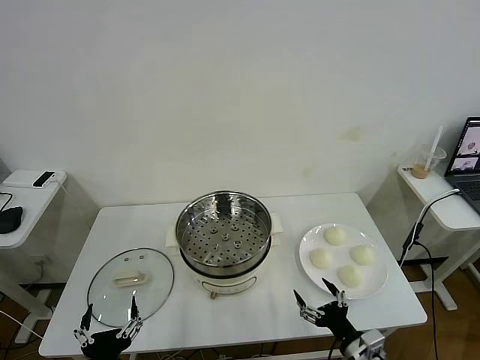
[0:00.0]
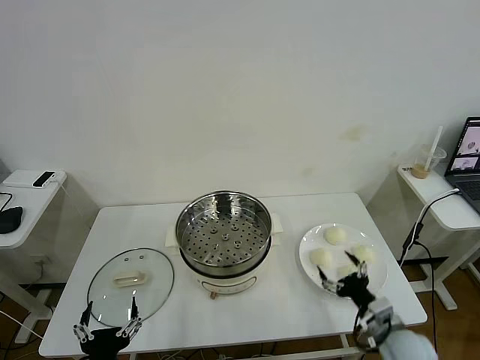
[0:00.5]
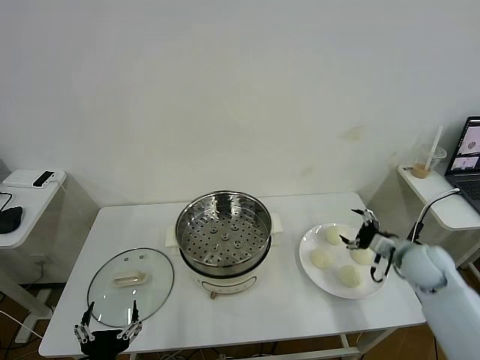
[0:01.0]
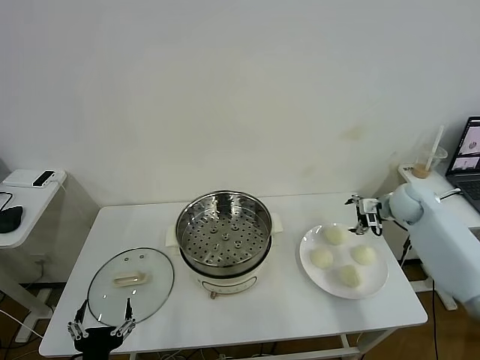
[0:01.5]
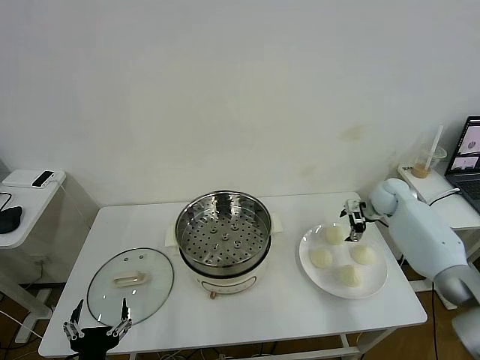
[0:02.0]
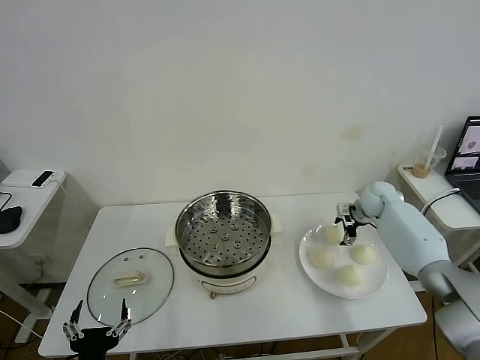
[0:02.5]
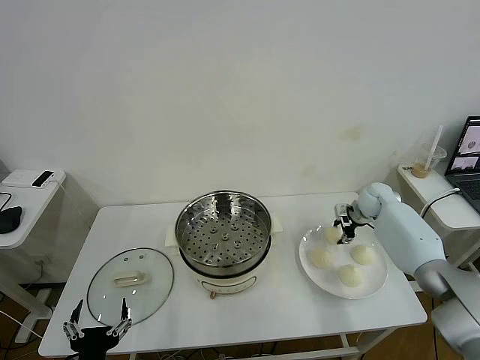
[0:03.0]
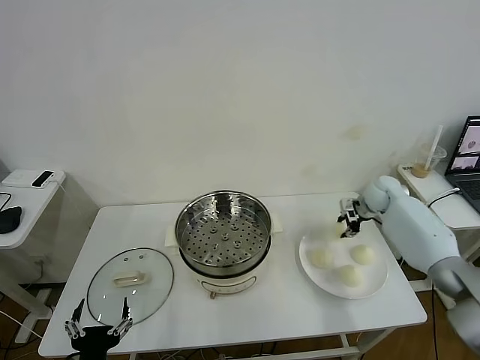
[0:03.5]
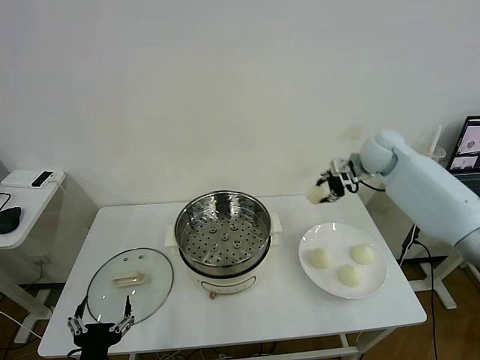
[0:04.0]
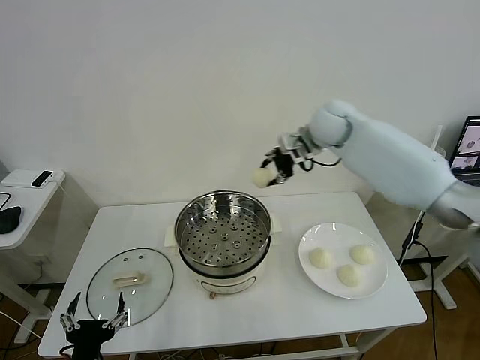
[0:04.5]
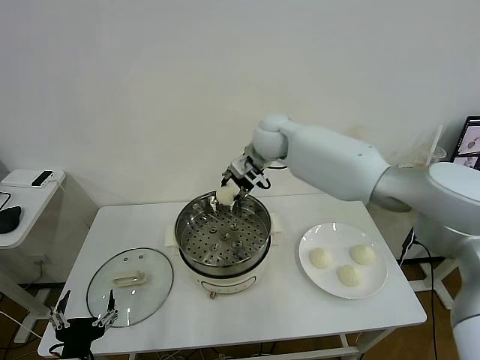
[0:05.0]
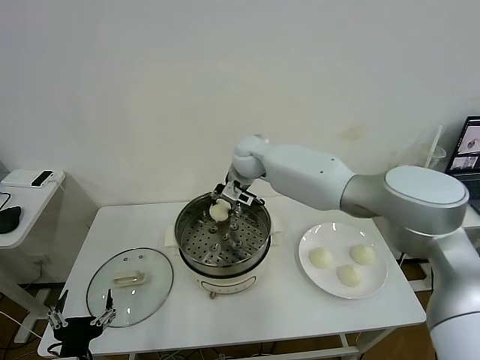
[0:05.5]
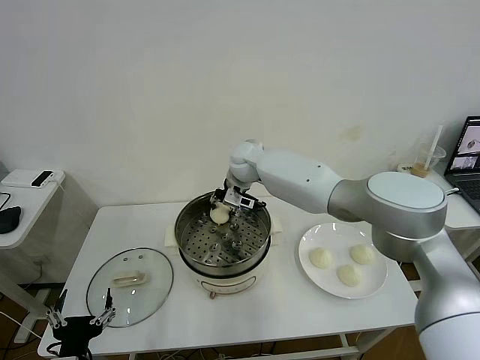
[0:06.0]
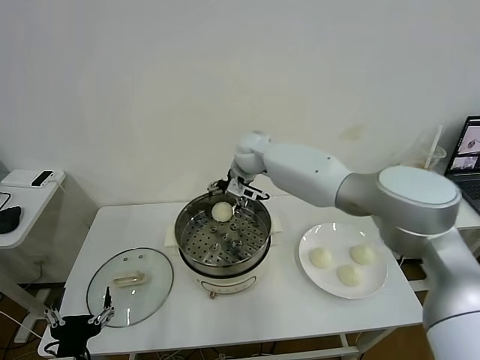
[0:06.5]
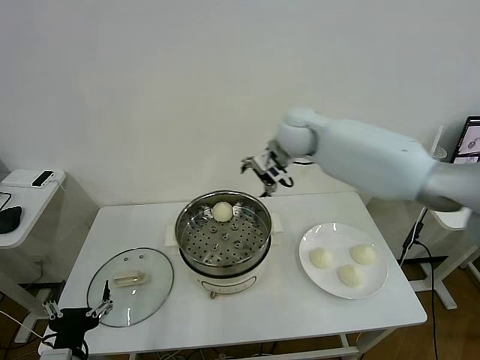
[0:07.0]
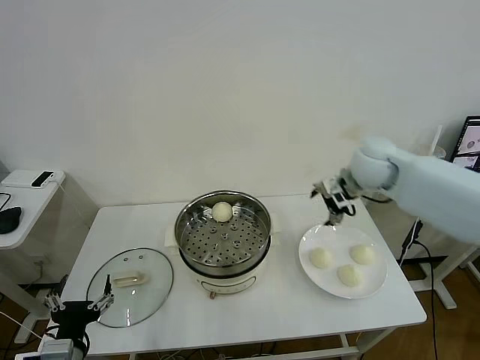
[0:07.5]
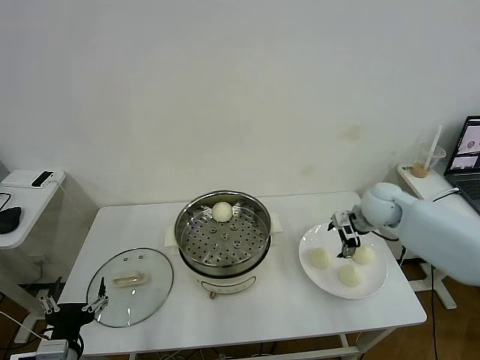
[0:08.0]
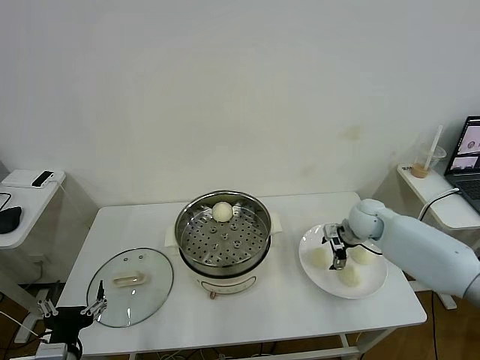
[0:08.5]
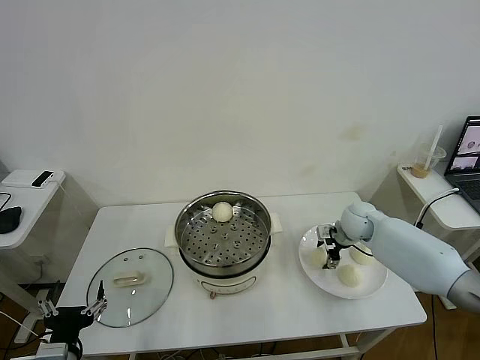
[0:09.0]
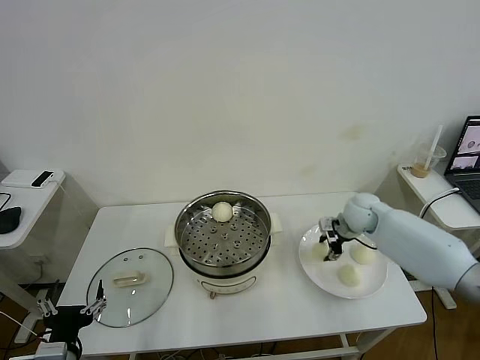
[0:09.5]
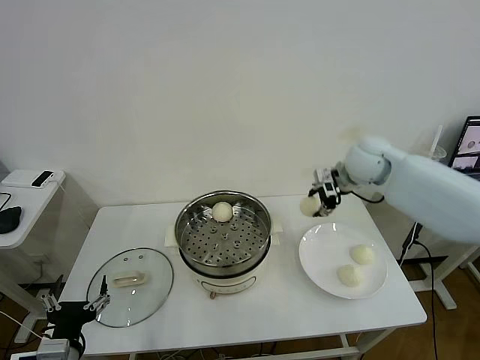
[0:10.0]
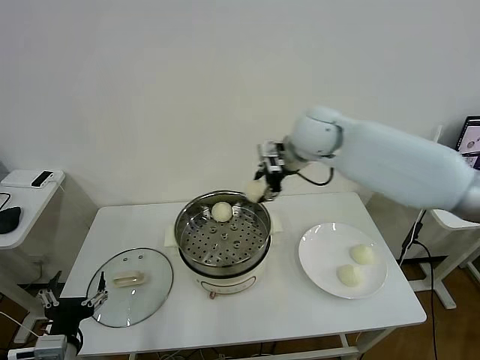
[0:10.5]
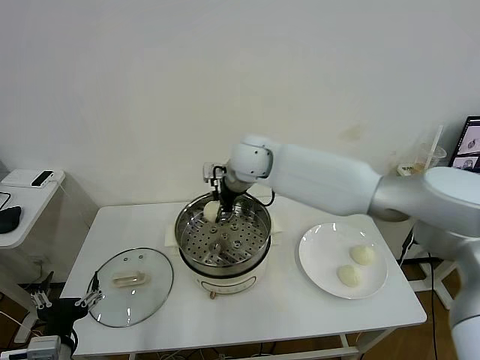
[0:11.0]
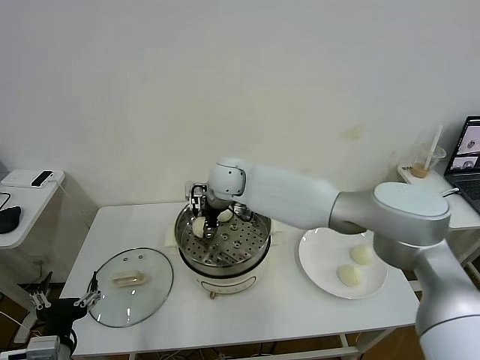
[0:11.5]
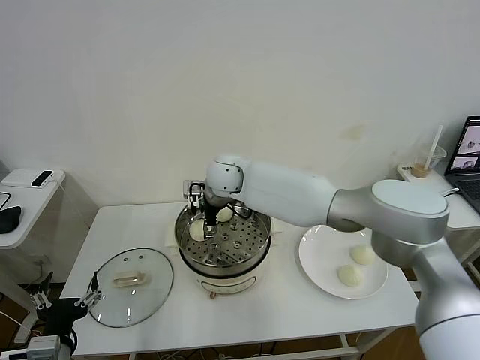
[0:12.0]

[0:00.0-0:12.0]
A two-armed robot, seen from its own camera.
Task of the whole recording: take steamed baozi put them in steamer then cover it.
Step, 0:00.0 to 0:03.0: Grasp the baozi in the plate with right gripper.
Step, 0:03.5 to 0:06.0: Place the baozi on the steamer with right gripper.
Step, 0:07.0 to 0:09.0: Grasp the baozi in the plate with right gripper.
0:02.0 to 0:04.0: The right gripper heads upward and to the left, covering roughly 15 cm, and closes its fingers.
0:04.0 to 0:06.0: The right gripper goes about 30 cm to the left.
0:06.0 to 0:08.0: The right gripper is displaced to the right by about 30 cm, and opens.
0:08.0 to 0:10.0: The right gripper moves upward and to the left, some 10 cm, and closes.
0:10.0 to 0:12.0: The right gripper goes approximately 30 cm to the left, and opens.

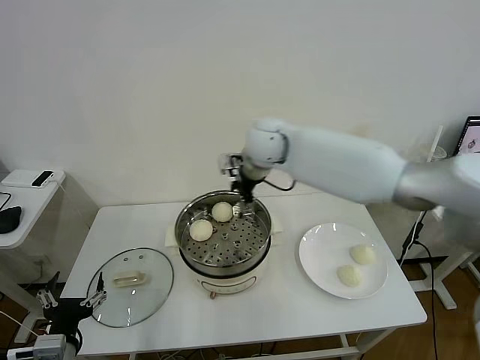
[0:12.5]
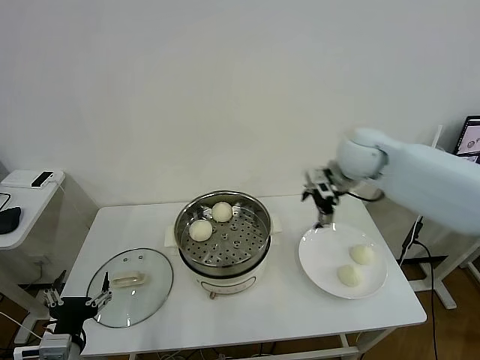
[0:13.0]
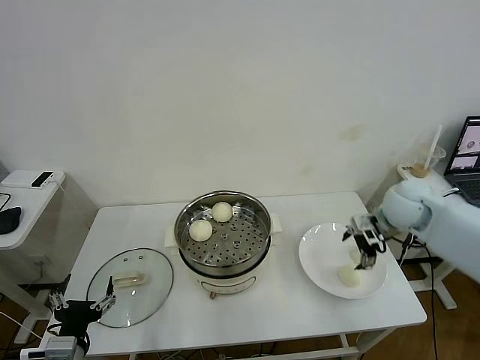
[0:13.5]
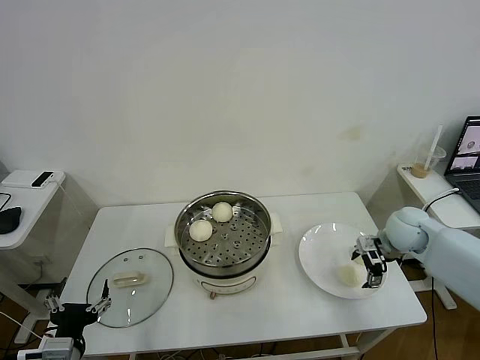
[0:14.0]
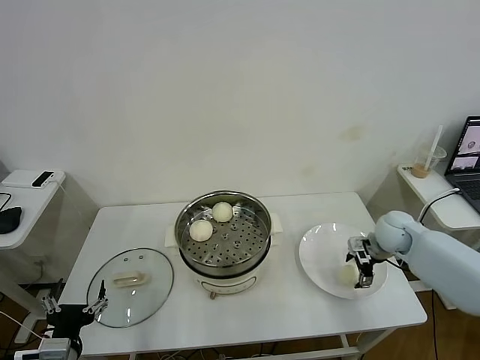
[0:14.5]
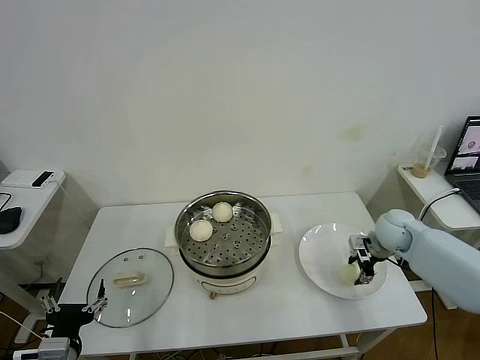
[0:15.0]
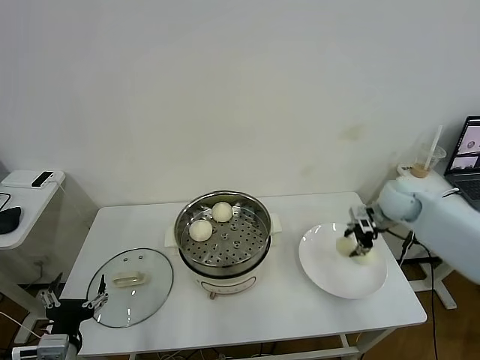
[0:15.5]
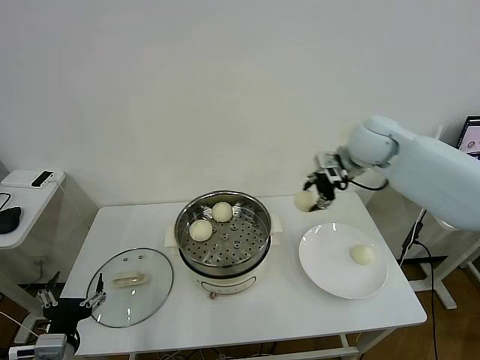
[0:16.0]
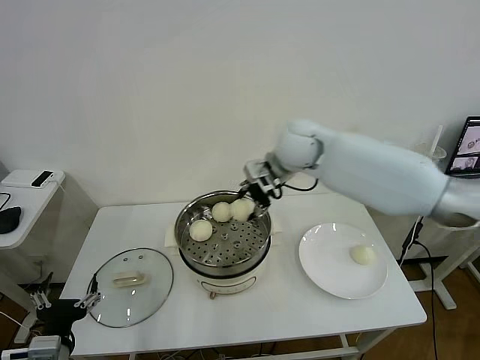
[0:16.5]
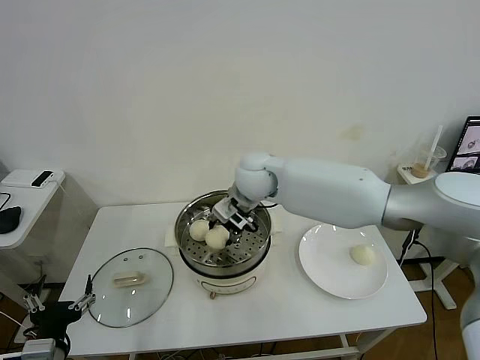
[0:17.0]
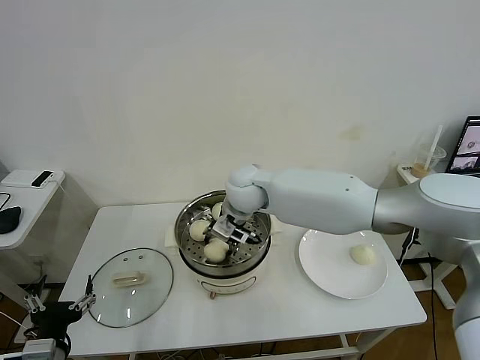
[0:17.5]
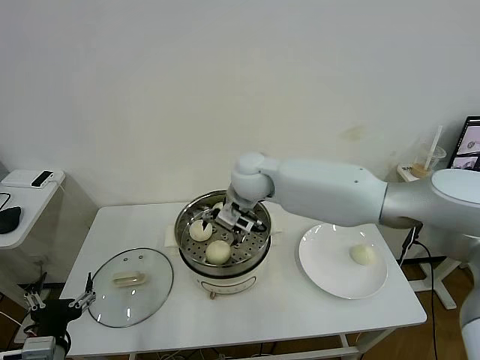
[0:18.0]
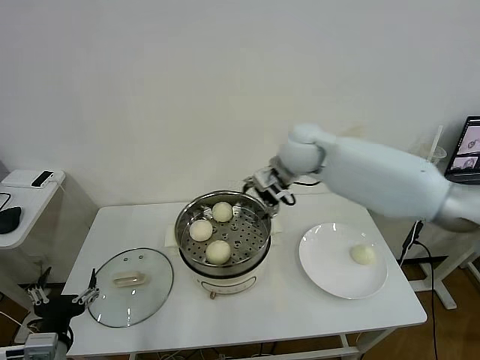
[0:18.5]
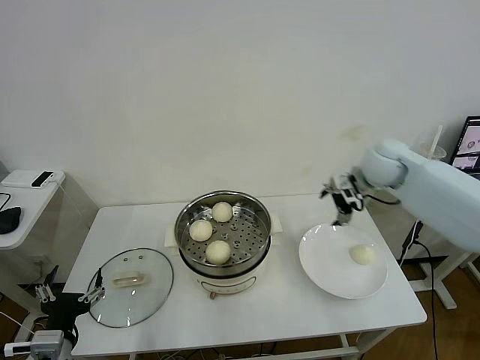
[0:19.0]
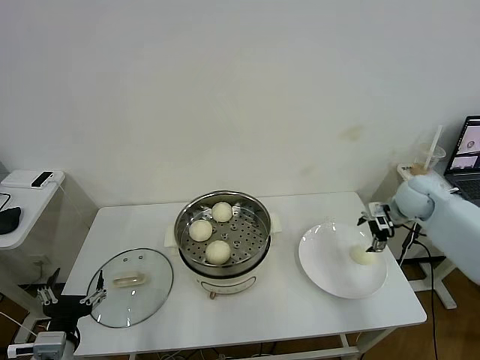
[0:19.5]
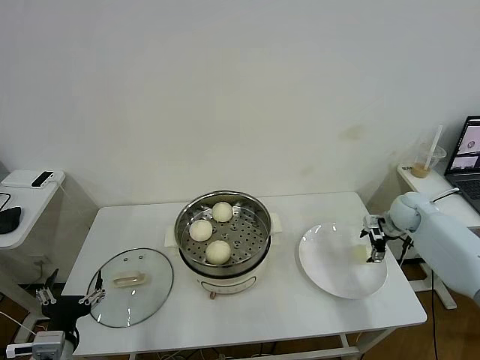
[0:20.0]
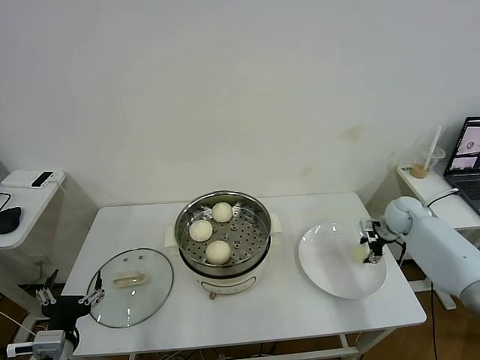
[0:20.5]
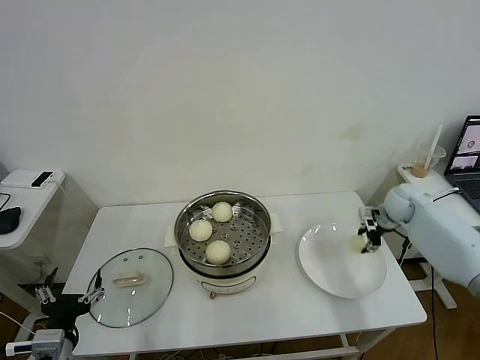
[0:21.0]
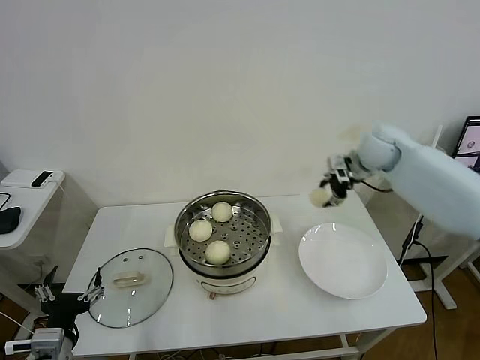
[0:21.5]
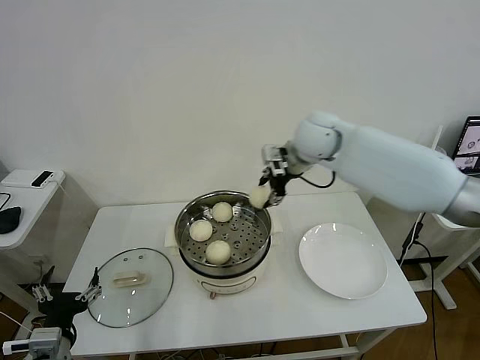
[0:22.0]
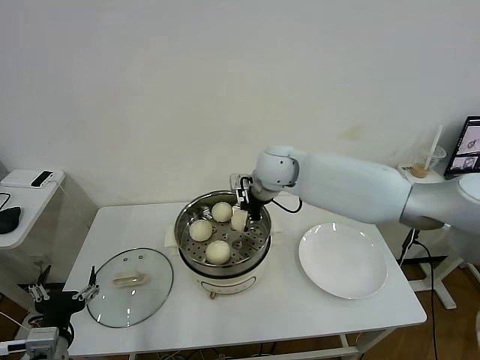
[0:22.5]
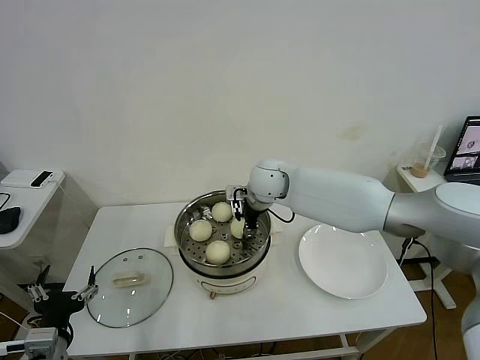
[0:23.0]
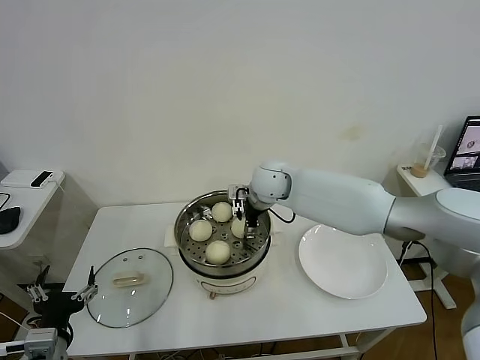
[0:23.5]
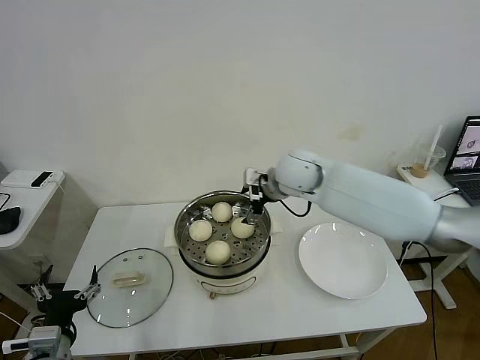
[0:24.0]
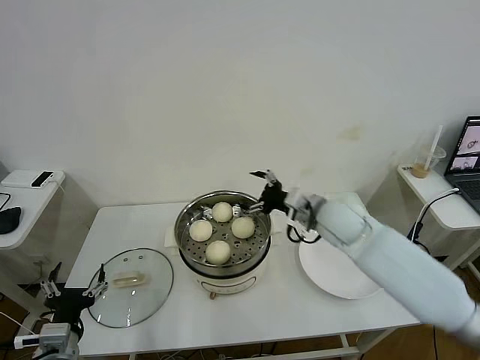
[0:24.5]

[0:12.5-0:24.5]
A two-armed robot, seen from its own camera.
Task of the whole recording: take steamed baozi put them in steamer then cover it.
Step, 0:12.5 to 0:15.0: Grasp the baozi in the plate with right gripper.
Step, 0:15.5 to 0:18.0: Place the baozi on the steamer with right gripper.
Step, 0:18.5 to 0:20.5: Grasp the baozi in the plate with right gripper.
Step, 0:21.0 to 0:23.5: Place the baozi on the steamer with right gripper.
0:12.5 to 0:14.5: The right gripper travels to the right and downward by about 40 cm.
0:14.5 to 0:16.5: The right gripper is displaced to the left and upward by about 35 cm, and closes up.
0:16.5 to 0:18.5: The right gripper reaches about 10 cm to the left, then returns, and opens its fingers.
0:18.5 to 0:20.5: The right gripper heads to the right and downward, covering about 40 cm, and closes its fingers.
0:20.5 to 0:22.5: The right gripper travels to the left and upward by approximately 40 cm.
0:22.5 to 0:24.5: The right gripper travels to the right, backward and downward by roughly 15 cm, and opens its fingers.

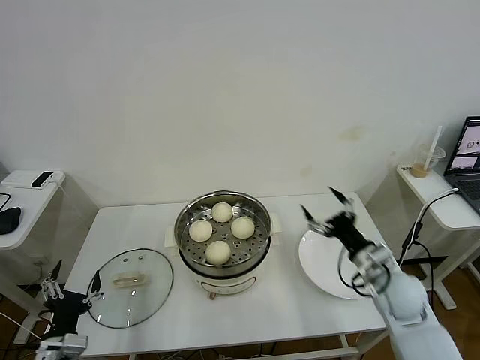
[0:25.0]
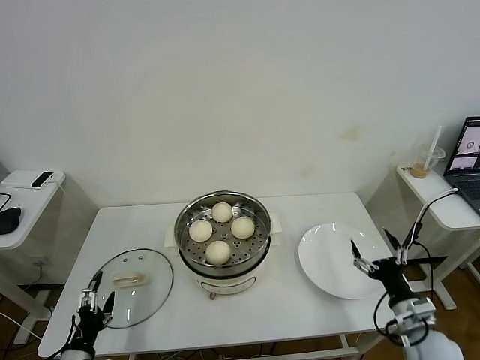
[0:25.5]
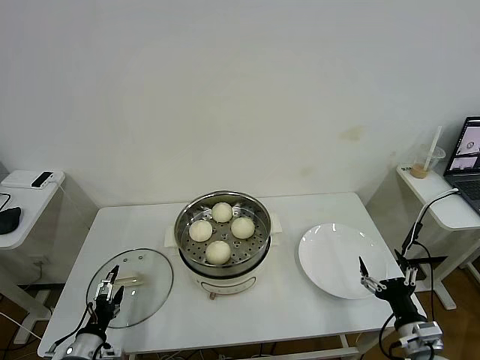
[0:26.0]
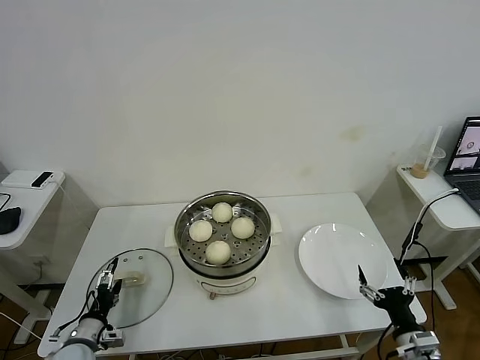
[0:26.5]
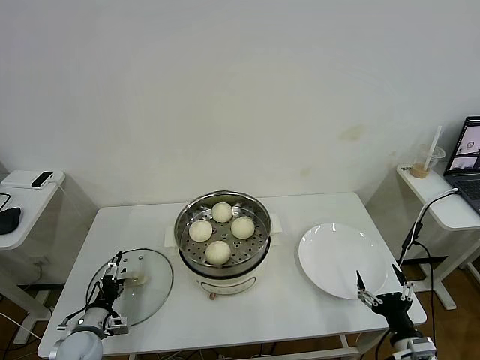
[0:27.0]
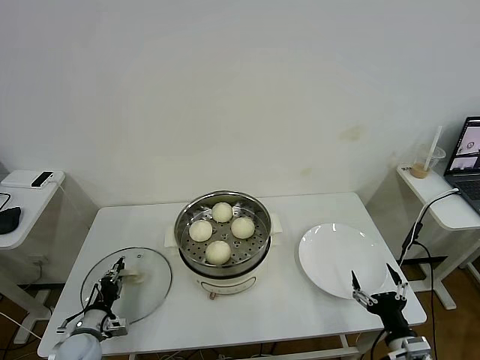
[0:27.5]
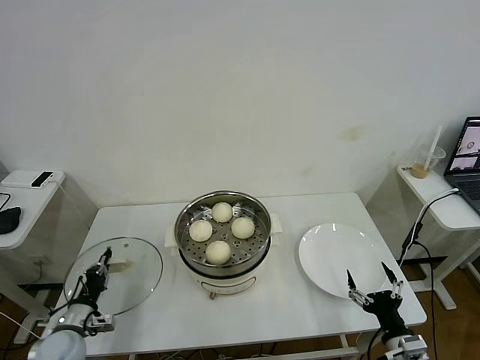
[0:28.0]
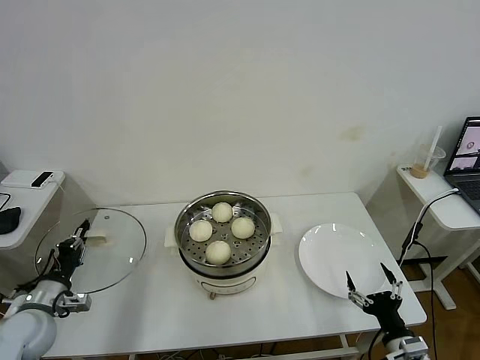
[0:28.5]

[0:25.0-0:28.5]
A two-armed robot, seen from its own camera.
Task of the whole recording: take steamed baozi put them in steamer then cover it.
Step, 0:25.0 to 0:27.5: Grasp the pot lid with left gripper.
0:25.0 to 0:27.0: The left gripper is displaced downward and forward by about 15 cm. Meanwhile the right gripper travels backward and downward by some 20 cm.
0:27.0 to 0:28.5: The left gripper moves upward, roughly 15 cm, and closes up.
